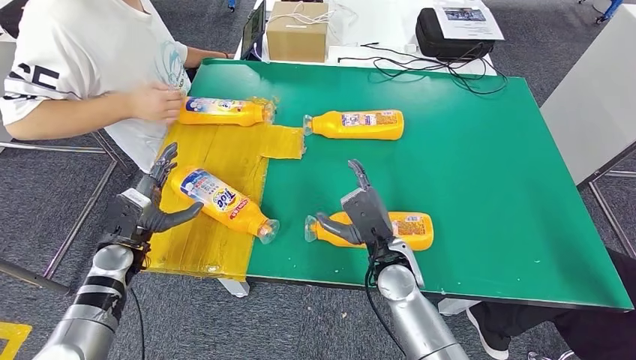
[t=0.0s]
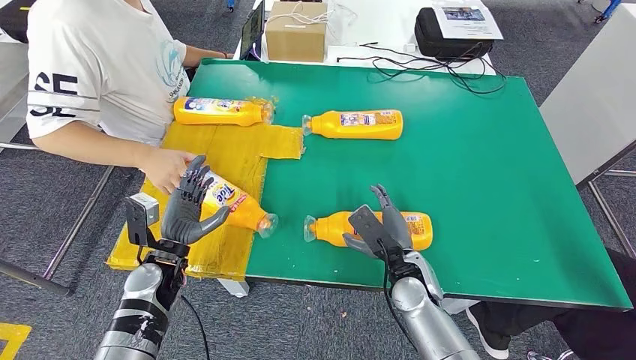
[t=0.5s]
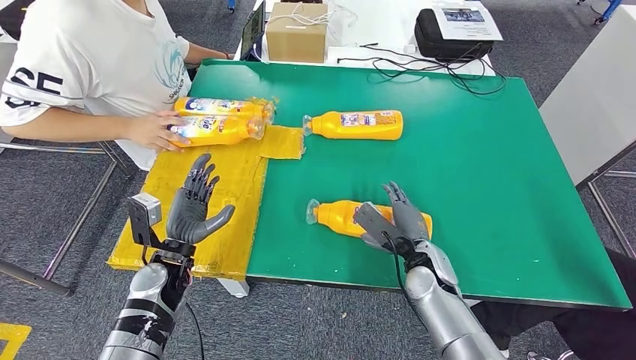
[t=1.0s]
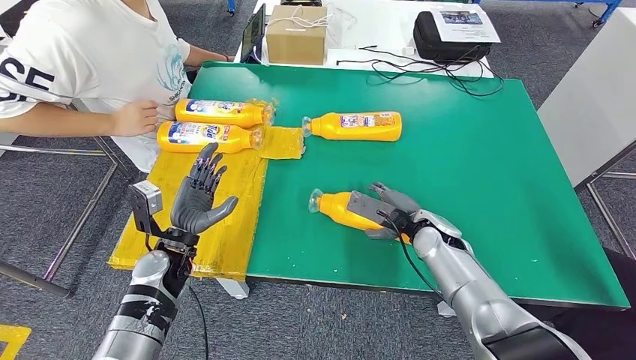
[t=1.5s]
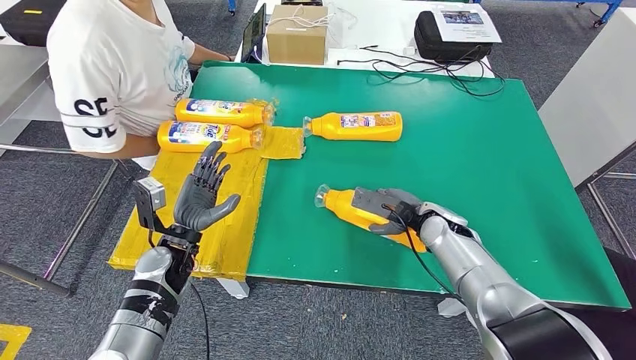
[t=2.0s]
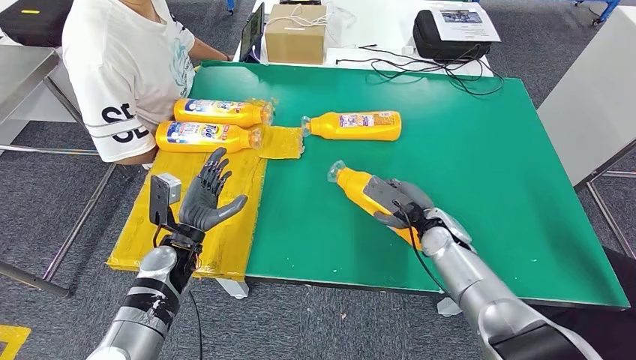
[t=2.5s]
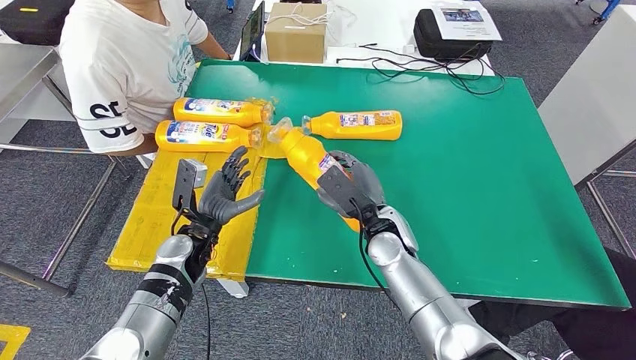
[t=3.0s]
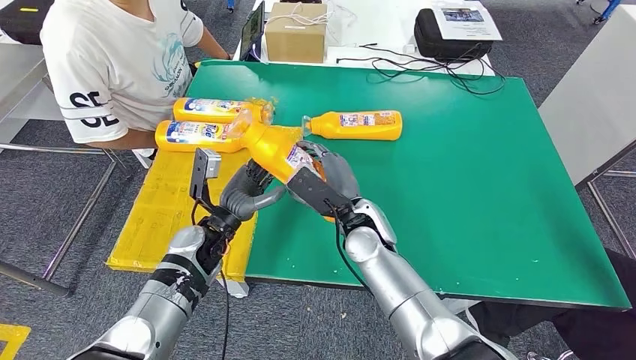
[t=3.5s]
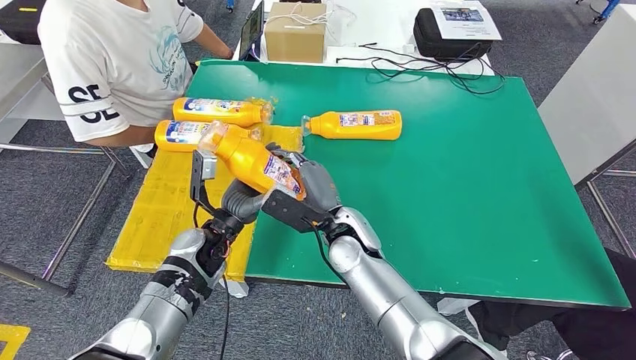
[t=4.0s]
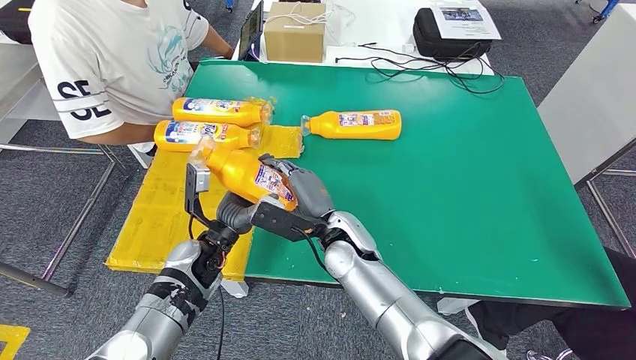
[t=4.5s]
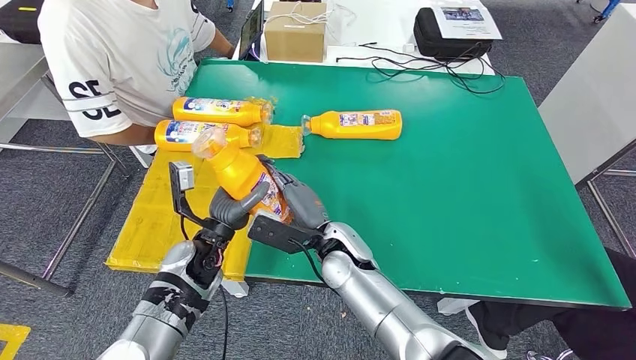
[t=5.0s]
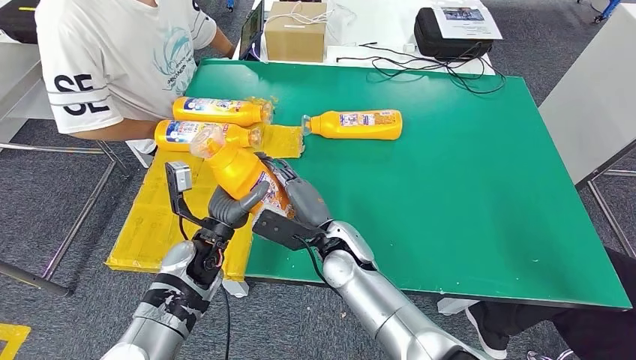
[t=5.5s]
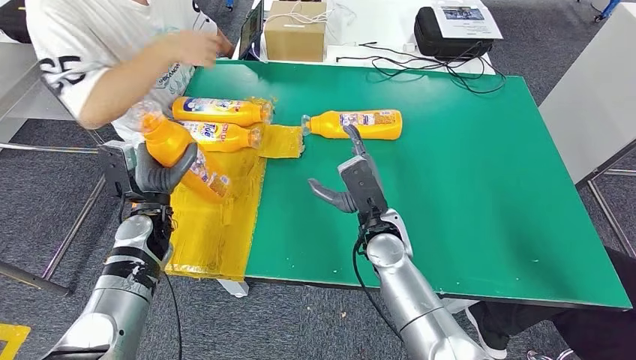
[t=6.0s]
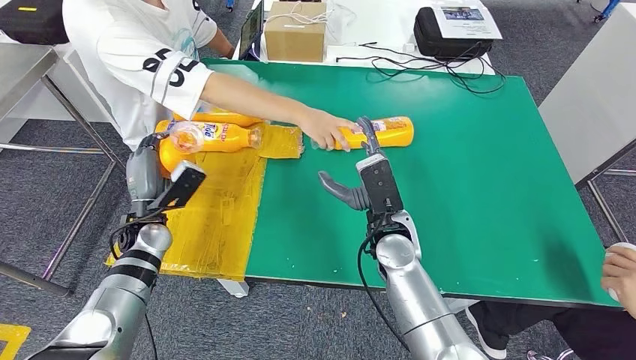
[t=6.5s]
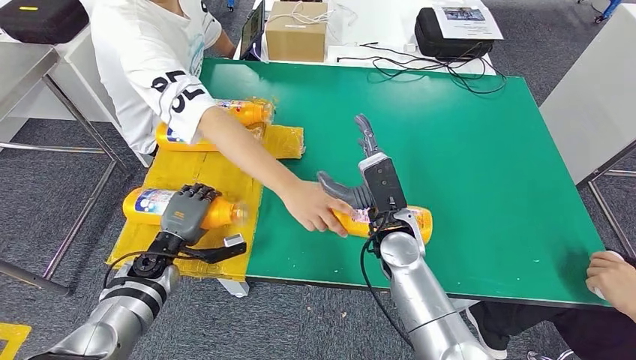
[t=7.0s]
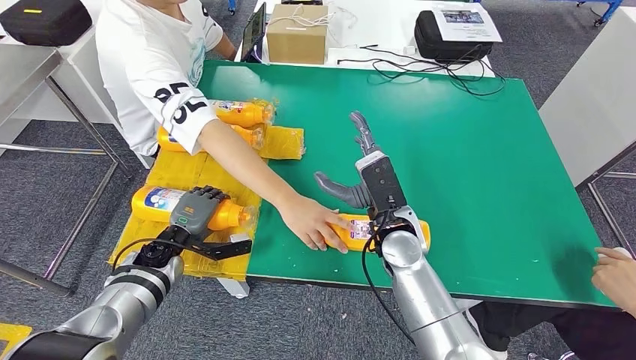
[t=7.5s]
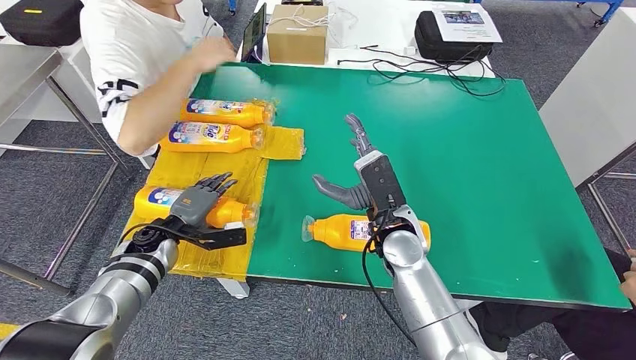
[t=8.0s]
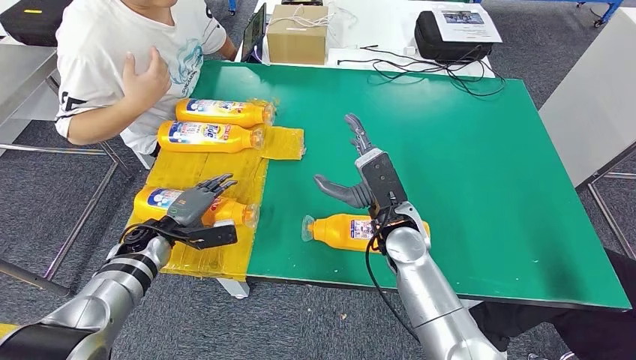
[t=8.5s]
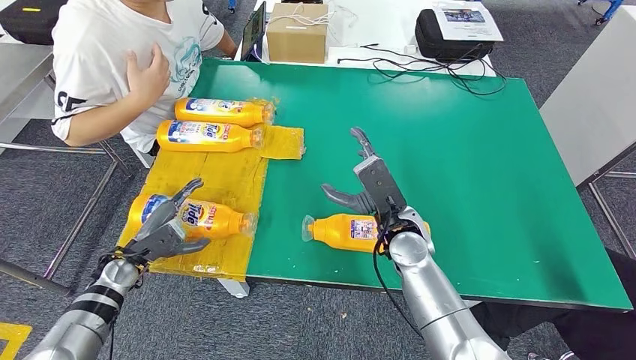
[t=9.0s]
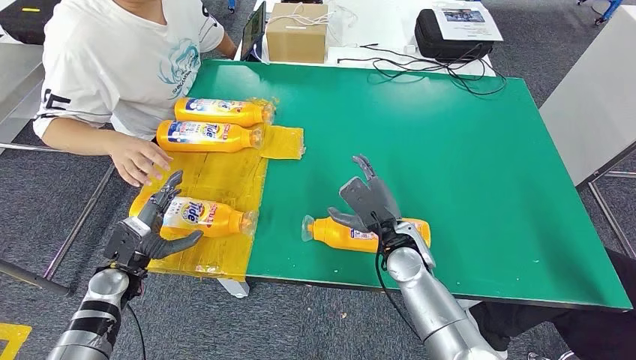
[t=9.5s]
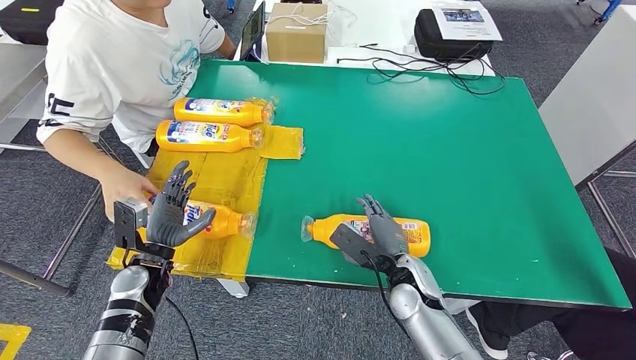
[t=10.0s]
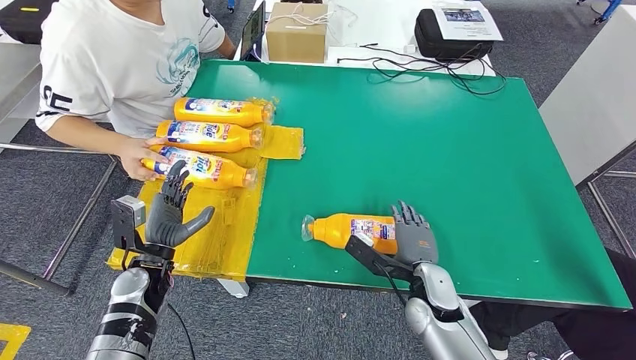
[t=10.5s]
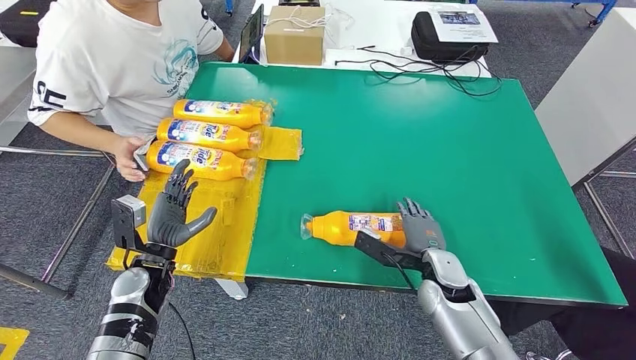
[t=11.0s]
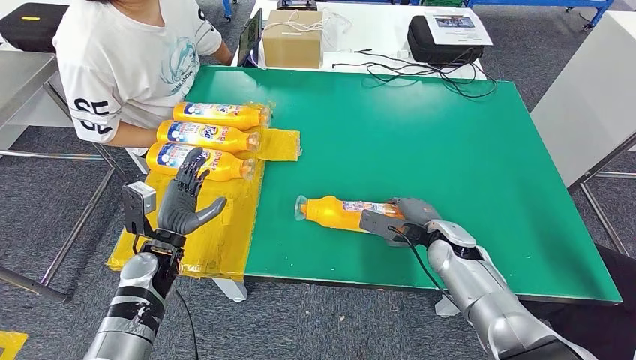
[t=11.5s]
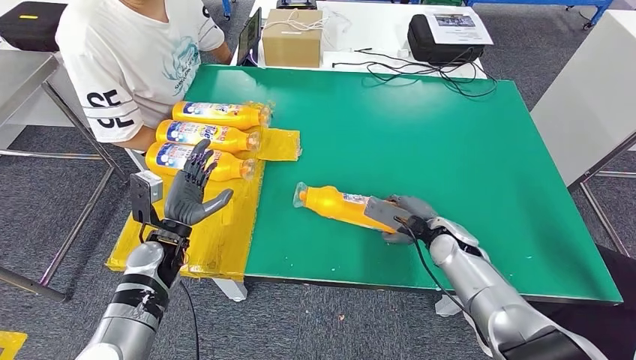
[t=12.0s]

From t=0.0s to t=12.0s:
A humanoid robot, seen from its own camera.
Step, from t=0.0s to t=3.0s: Pick up the bottle from the table.
Step, from t=4.0s to t=9.5s: Flip the bottle to face forward.

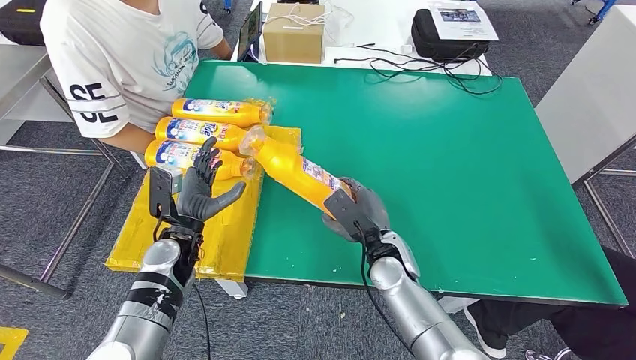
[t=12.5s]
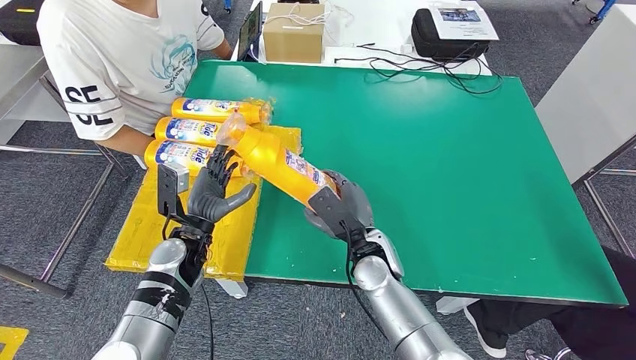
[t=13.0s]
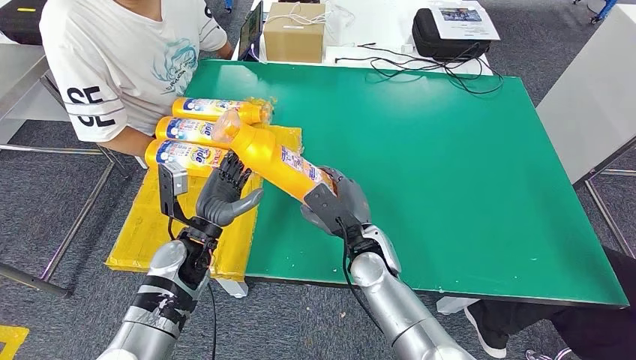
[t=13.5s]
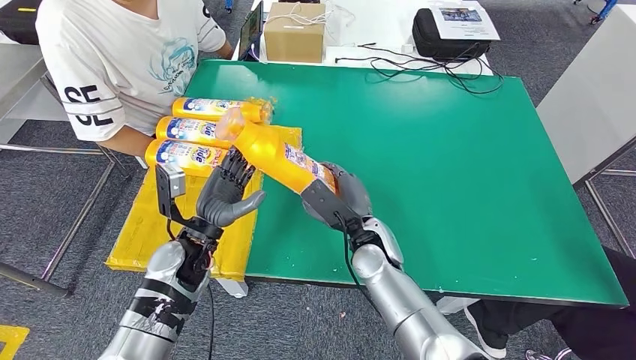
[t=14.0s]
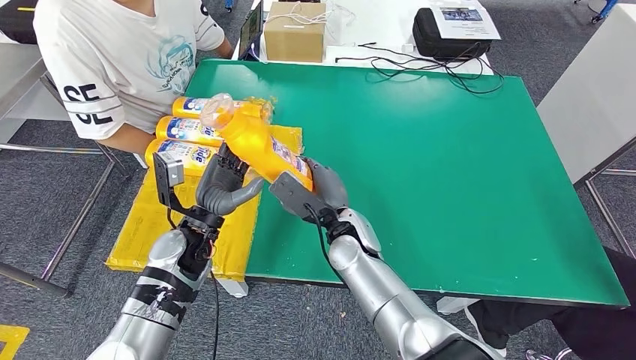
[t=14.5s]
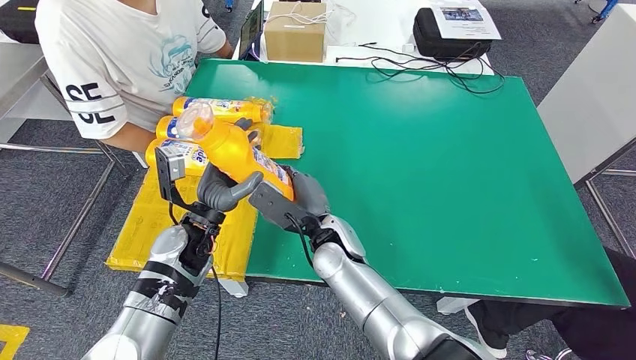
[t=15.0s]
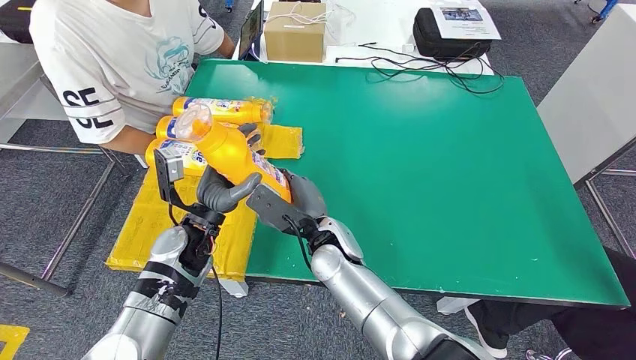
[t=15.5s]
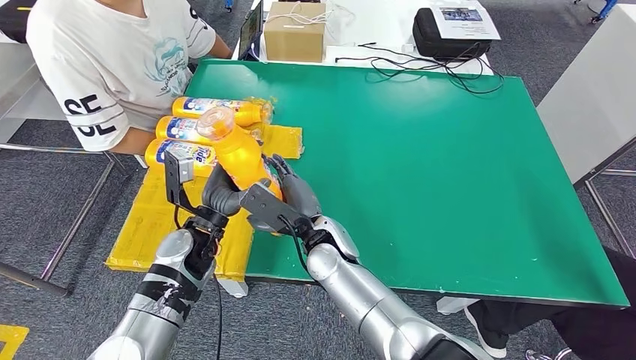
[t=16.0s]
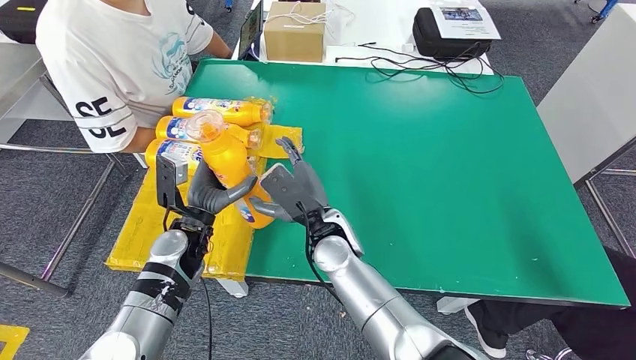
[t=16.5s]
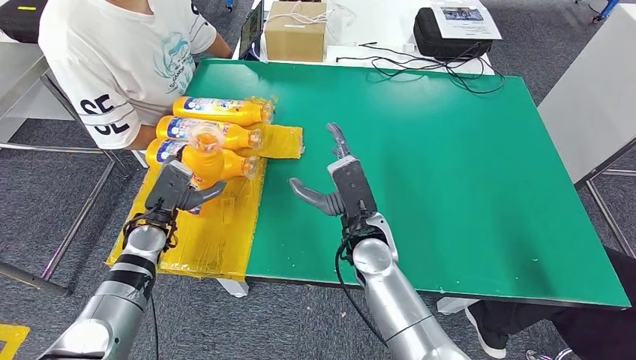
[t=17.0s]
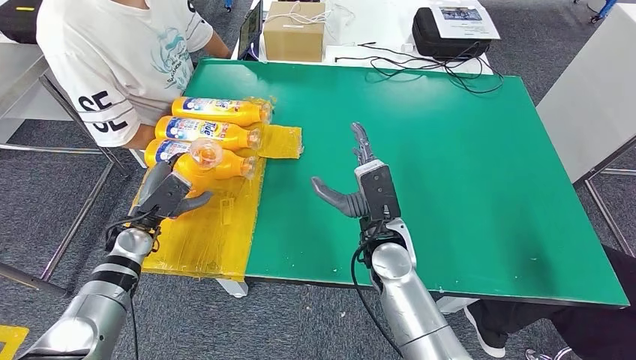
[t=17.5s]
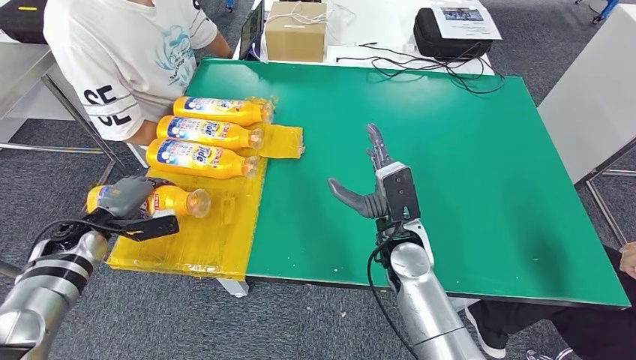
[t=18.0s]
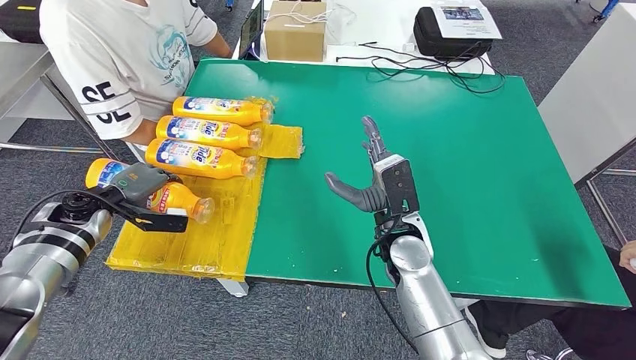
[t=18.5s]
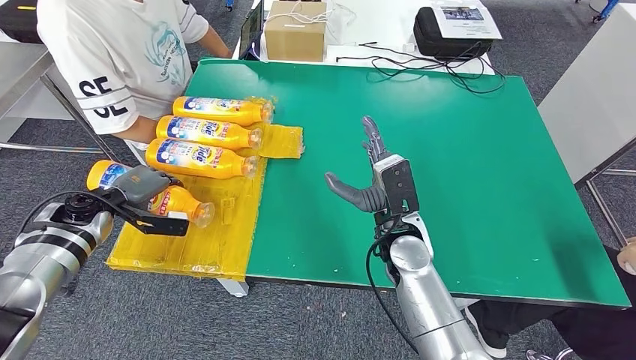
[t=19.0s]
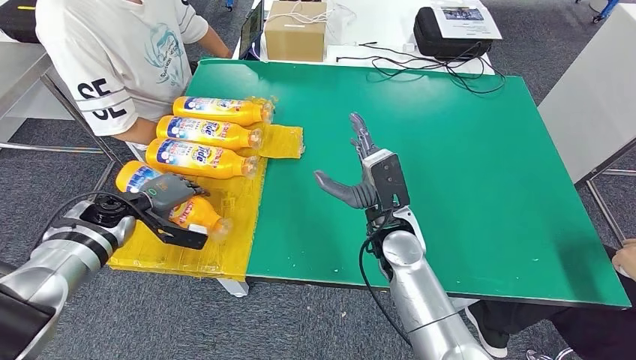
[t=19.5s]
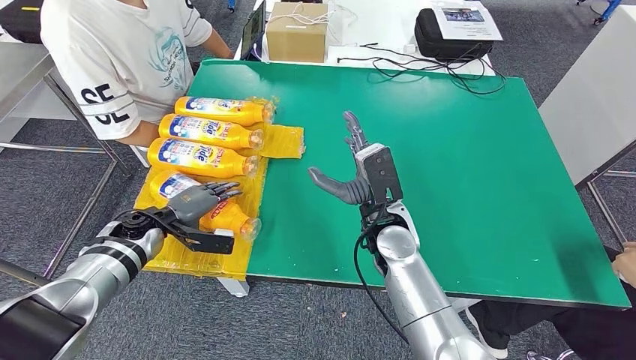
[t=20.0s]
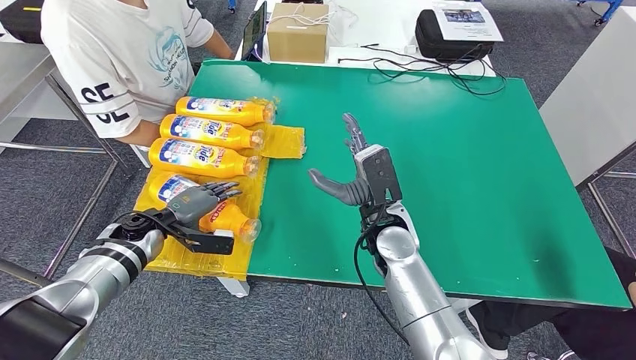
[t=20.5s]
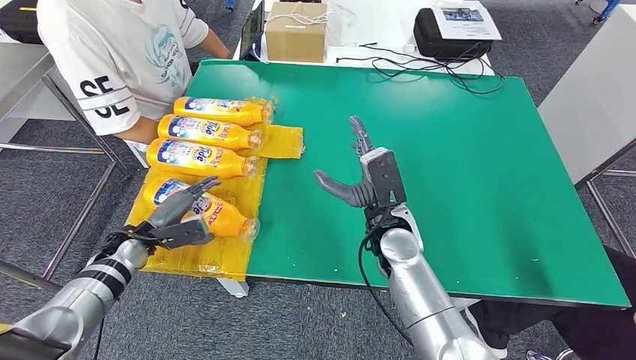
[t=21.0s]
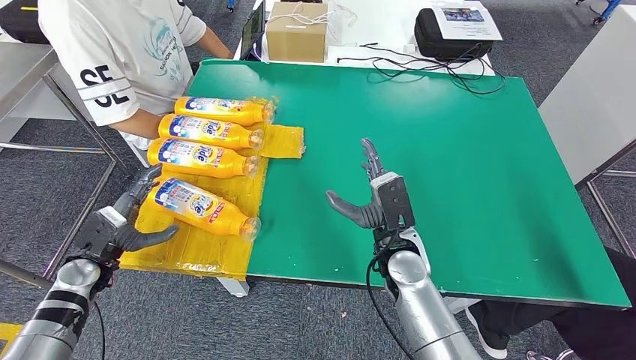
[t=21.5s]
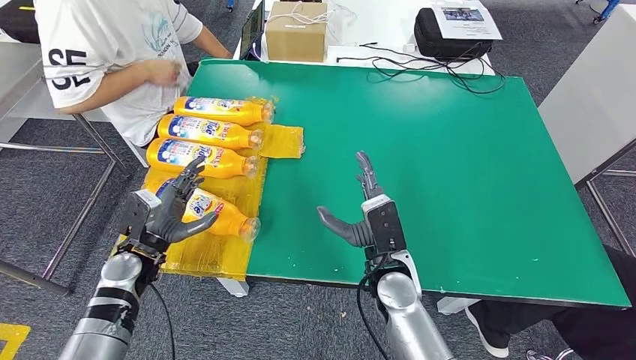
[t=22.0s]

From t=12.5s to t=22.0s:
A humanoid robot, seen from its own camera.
Step, from t=13.5s to t=22.0s: Flip the bottle to face forward.
From t=12.5s to t=14.5s: The right hand shifts approximately 10 cm to the left; the left hand shifts by about 5 cm.
From t=14.5s to t=16.5s: The hands make only small movements.
From t=18.0s to t=20.0s: The left hand shifts approximately 10 cm to the right.
